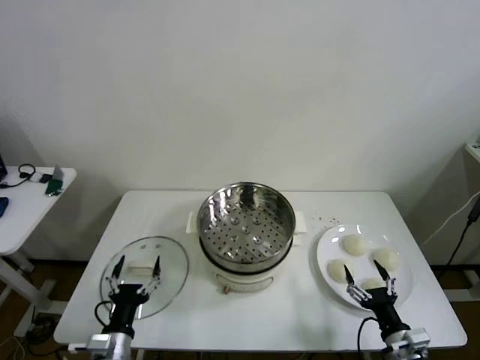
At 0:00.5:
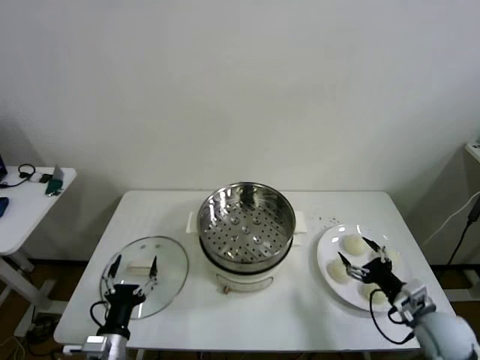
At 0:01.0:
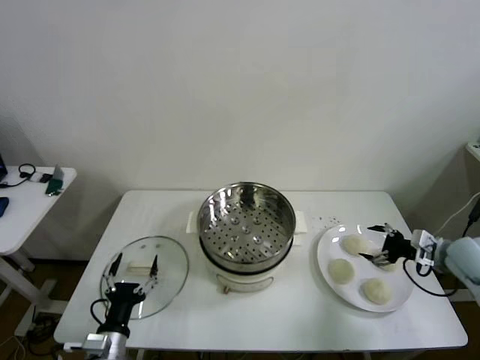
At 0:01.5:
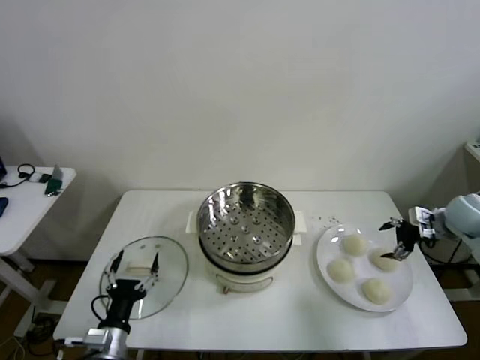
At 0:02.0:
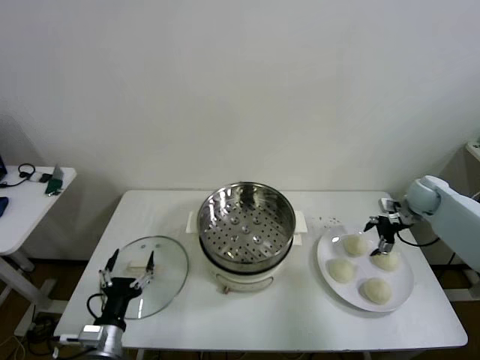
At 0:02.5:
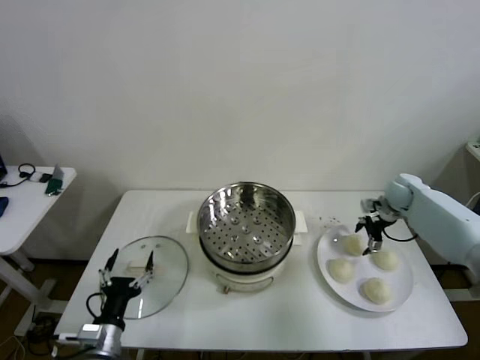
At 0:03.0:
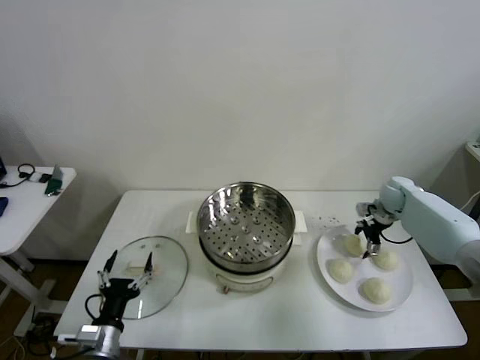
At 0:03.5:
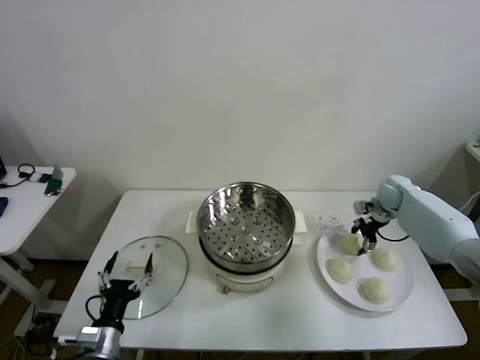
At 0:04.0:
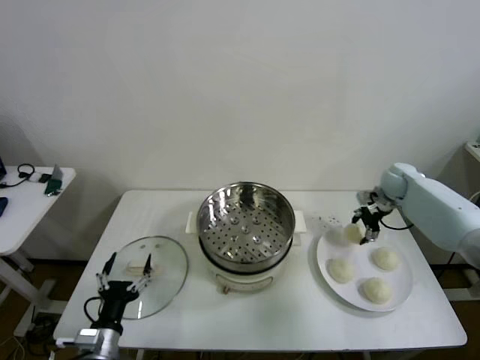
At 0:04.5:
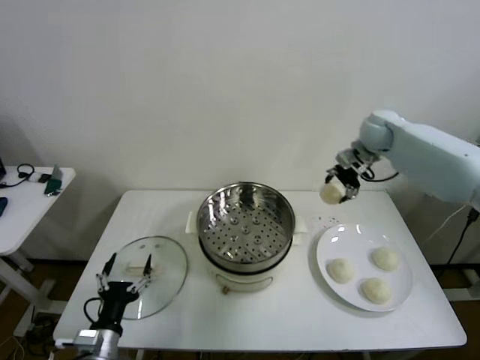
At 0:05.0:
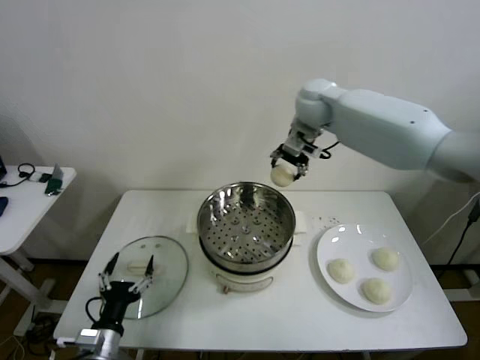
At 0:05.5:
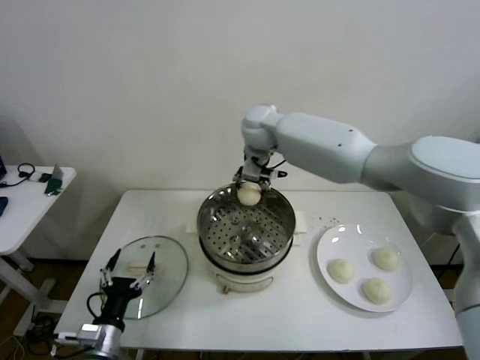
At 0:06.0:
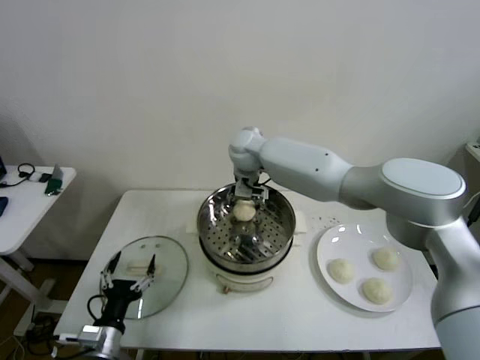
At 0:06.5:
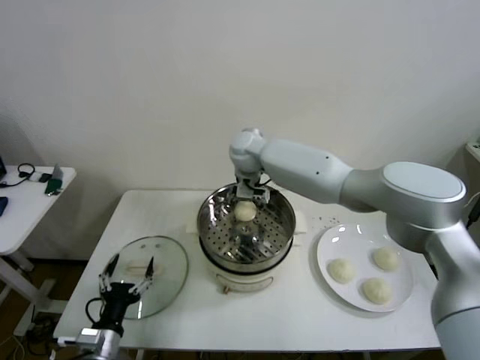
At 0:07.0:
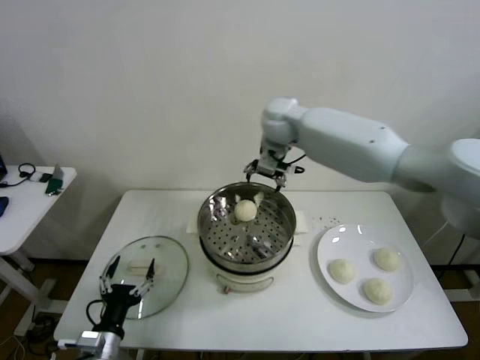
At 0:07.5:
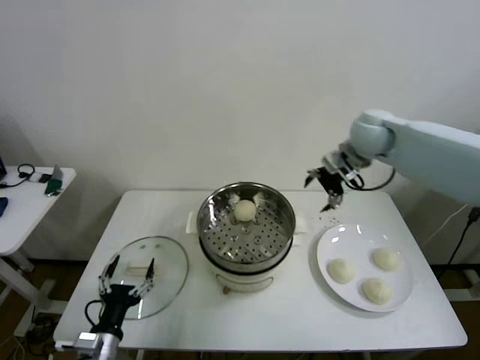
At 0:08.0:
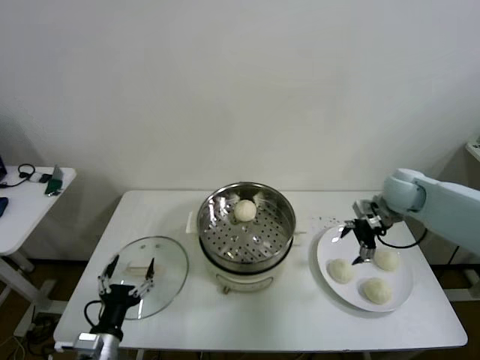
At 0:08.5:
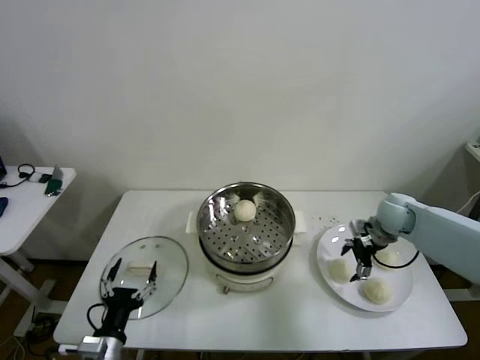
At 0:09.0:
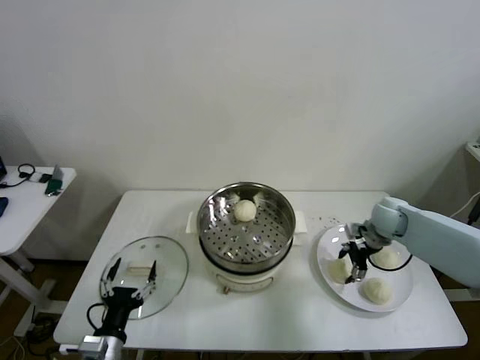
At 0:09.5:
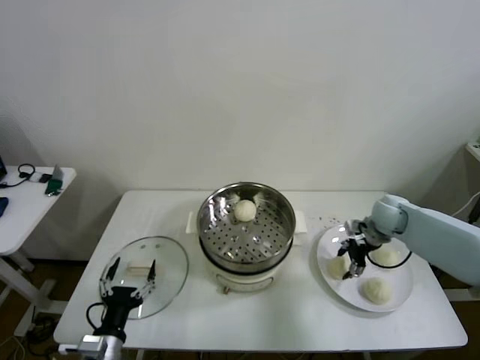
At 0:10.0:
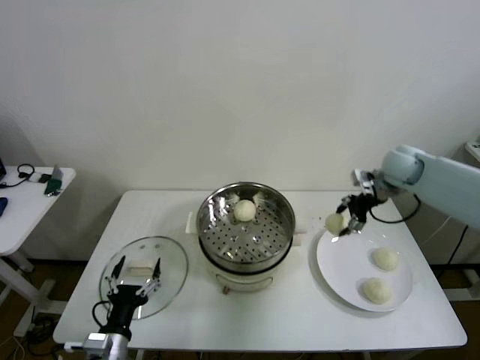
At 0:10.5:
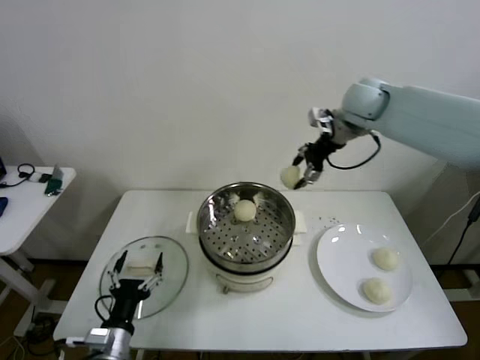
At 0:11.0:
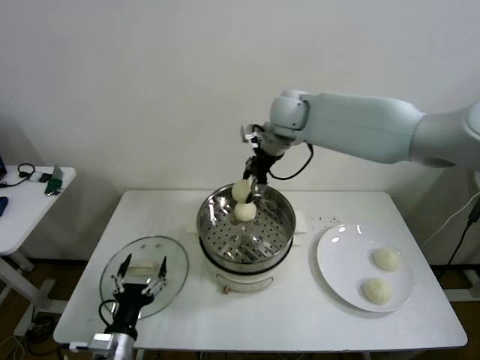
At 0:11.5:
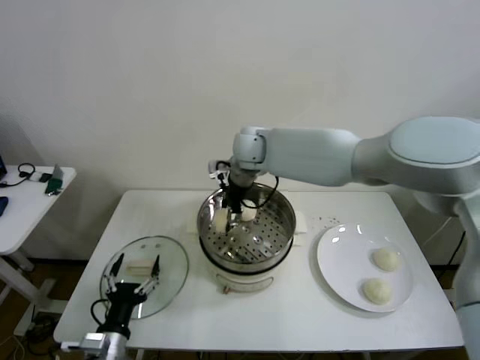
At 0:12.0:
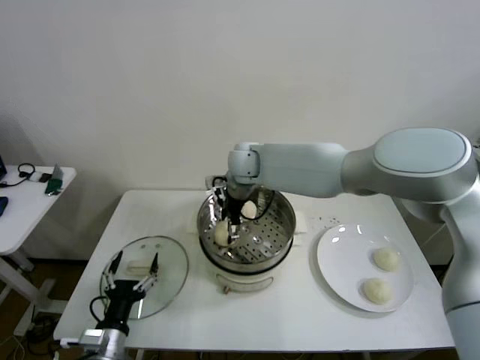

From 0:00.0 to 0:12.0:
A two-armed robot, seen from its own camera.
Step, from 0:00.0 to 0:03.0: Grasp the baozi in the plate with right gripper.
Step, from 0:03.5 to 0:06.0: Place the baozi on the steamer with right gripper.
Step, from 0:06.5 to 0:09.0: Grasp the baozi in the plate with right gripper.
Step, from 0:09.5 to 0:12.0: Place the baozi on the steamer with right gripper.
From 0:02.0 to 0:04.0: The right gripper travels forward by roughly 5 cm, and closes.
From 0:04.0 to 0:06.0: The right gripper is displaced to the left by about 40 cm.
From 0:06.0 to 0:08.0: The right gripper travels to the right by about 35 cm, and opens up.
From 0:08.0 to 0:10.0: The right gripper moves upward and forward, roughly 10 cm, and closes its fingers.
From 0:10.0 to 0:12.0: The right gripper heads to the left, covering roughly 35 cm, and opens its fingers.

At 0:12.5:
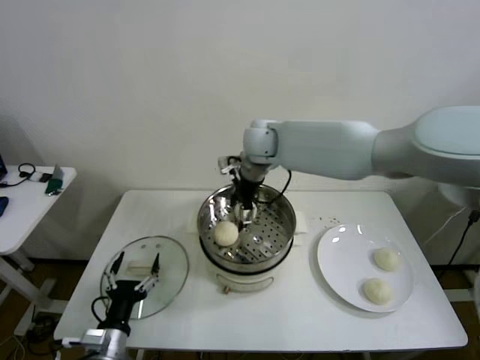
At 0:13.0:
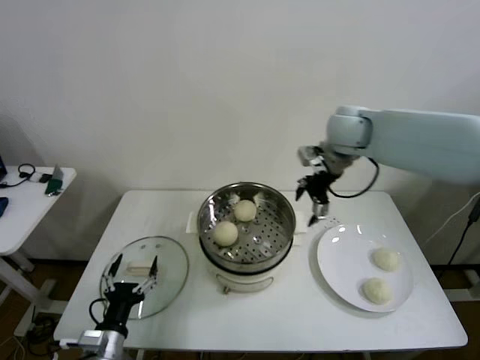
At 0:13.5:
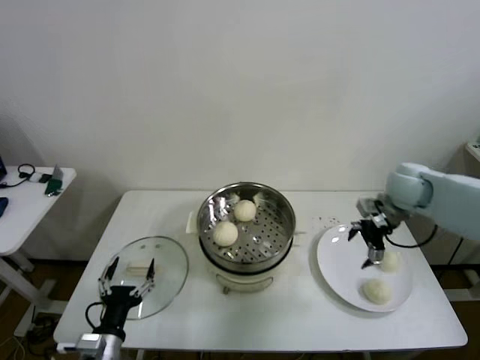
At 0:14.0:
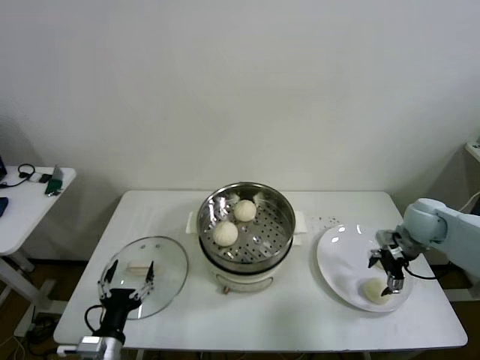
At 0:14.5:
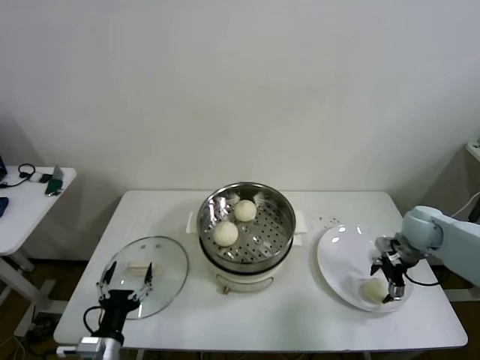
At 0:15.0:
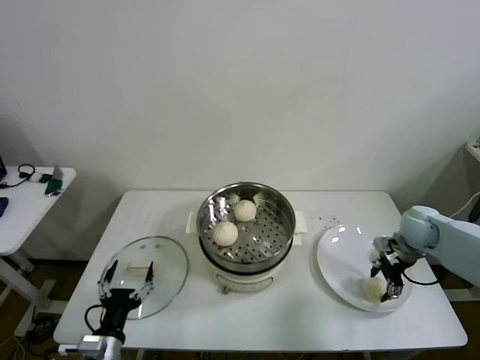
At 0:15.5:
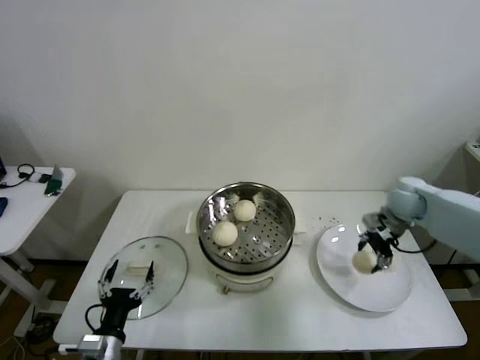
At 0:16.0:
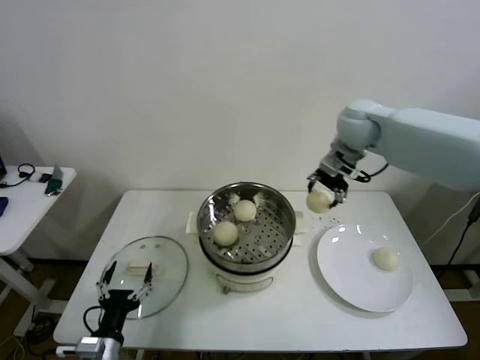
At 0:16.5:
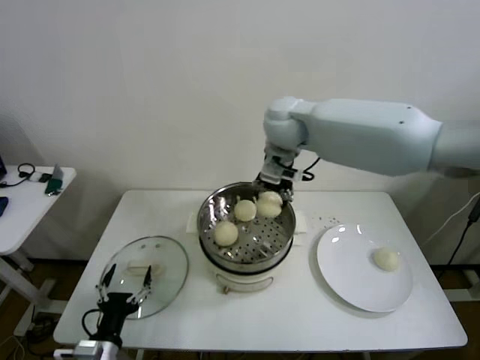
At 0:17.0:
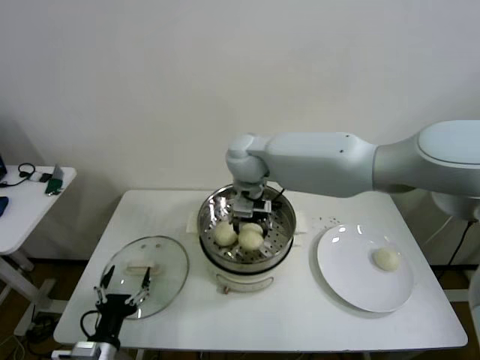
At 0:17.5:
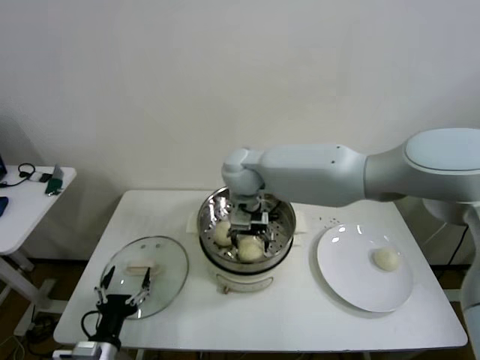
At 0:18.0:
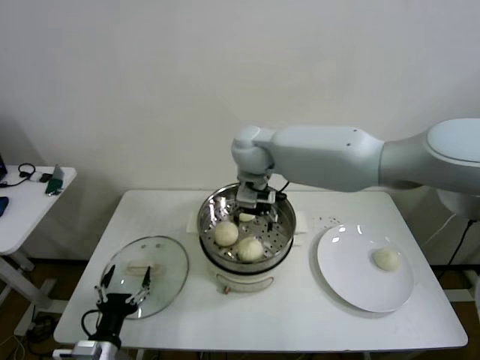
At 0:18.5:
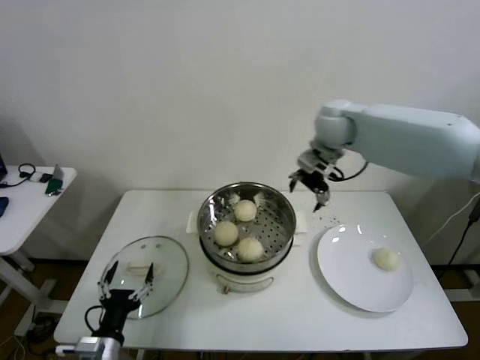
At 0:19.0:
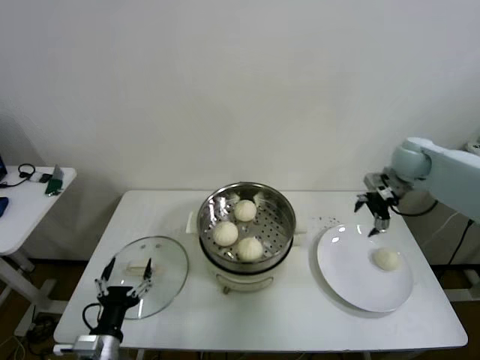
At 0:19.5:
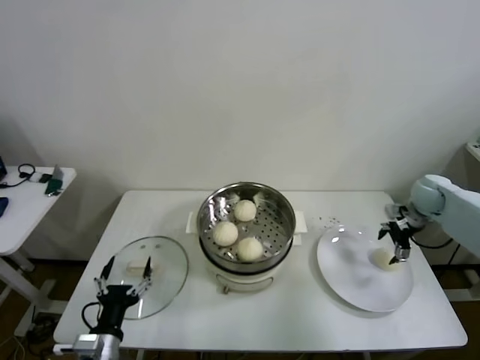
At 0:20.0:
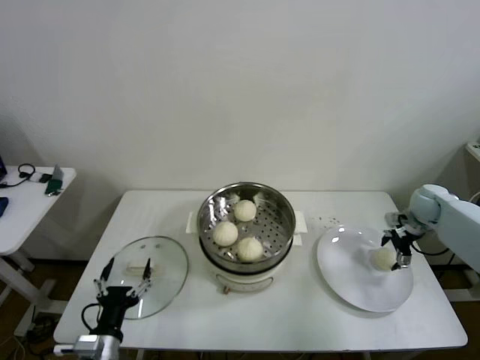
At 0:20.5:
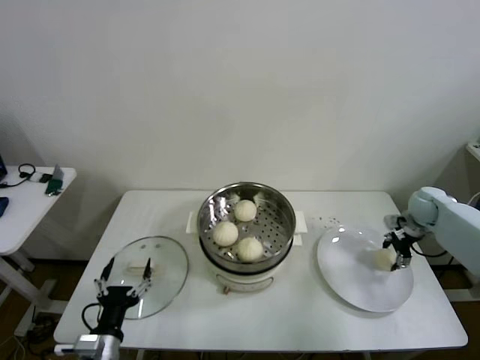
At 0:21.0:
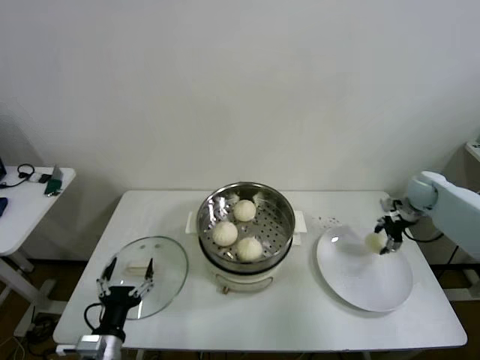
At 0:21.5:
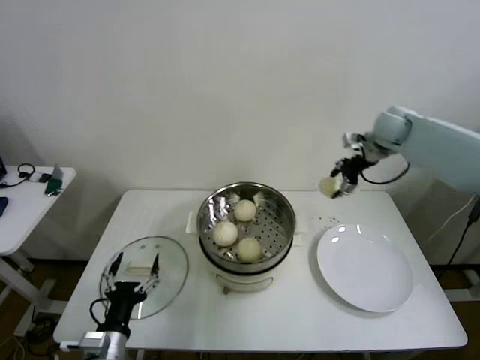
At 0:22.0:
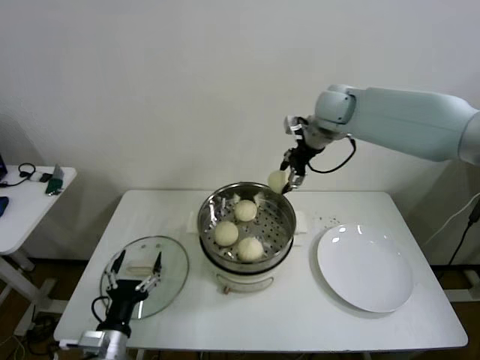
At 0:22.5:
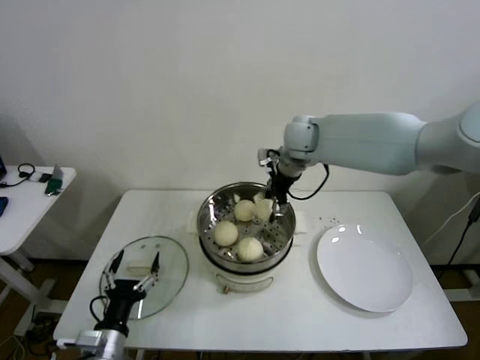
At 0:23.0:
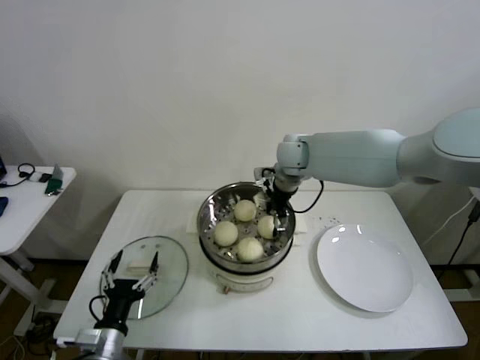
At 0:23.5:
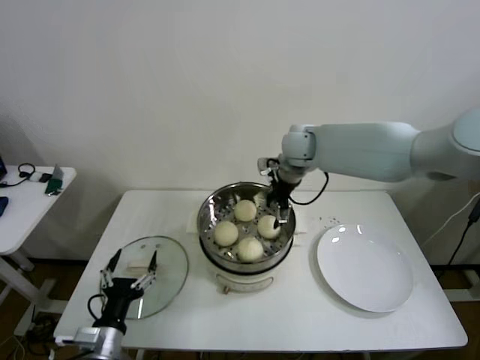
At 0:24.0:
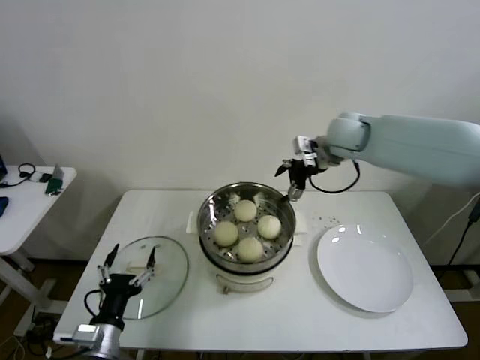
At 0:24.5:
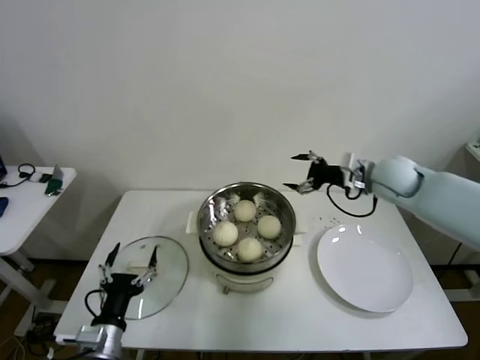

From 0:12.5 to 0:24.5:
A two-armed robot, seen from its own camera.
Step, from 0:12.5 to 0:14.5: Grasp the baozi in the plate with right gripper.
Step, from 0:15.0 to 0:17.5: Place the baozi on the steamer with right gripper.
Step, from 0:18.0 to 0:20.0: Grasp the baozi in the plate with right gripper.
Step, from 0:20.5 to 0:23.0: Place the baozi on the steamer with right gripper.
From 0:12.5 to 0:14.5: The right gripper moves to the right and downward, about 40 cm.
From 0:14.5 to 0:16.5: The right gripper heads to the left and upward, covering some 40 cm, and closes up.
From 0:16.5 to 0:18.5: The right gripper travels to the right by some 15 cm, and opens.
From 0:18.5 to 0:20.5: The right gripper goes roughly 35 cm to the right and downward, and closes up.
From 0:20.5 to 0:22.5: The right gripper moves to the left and upward, roughly 40 cm.
From 0:22.5 to 0:24.5: The right gripper heads to the right and backward, covering about 20 cm, and opens.

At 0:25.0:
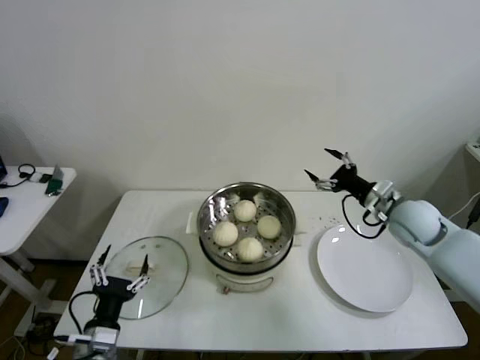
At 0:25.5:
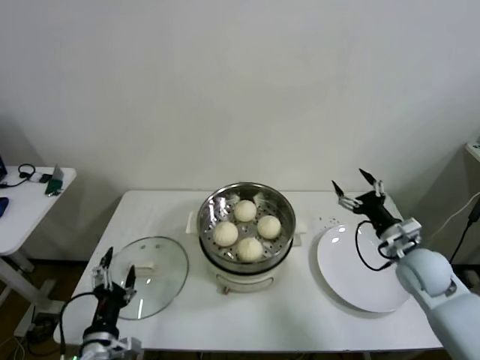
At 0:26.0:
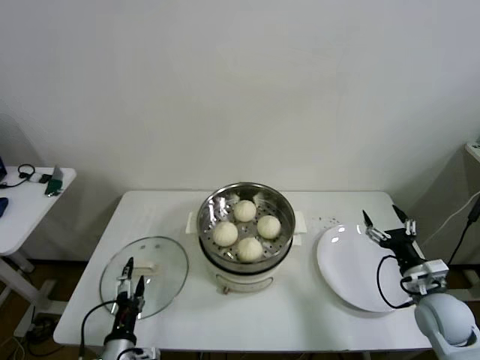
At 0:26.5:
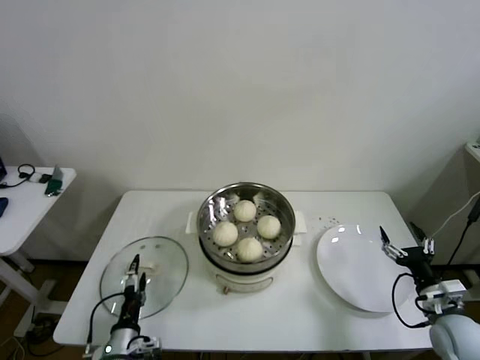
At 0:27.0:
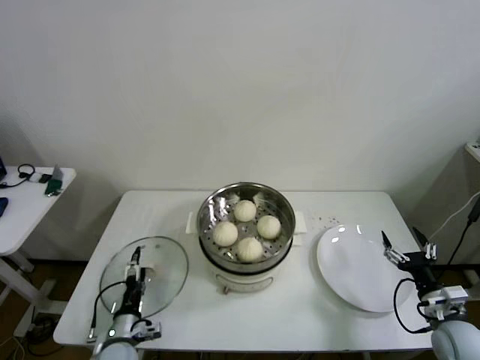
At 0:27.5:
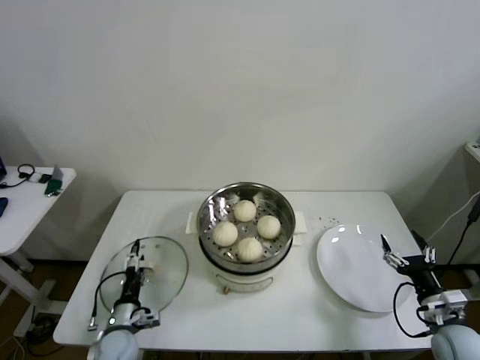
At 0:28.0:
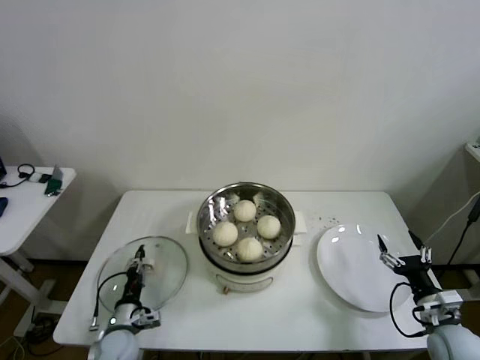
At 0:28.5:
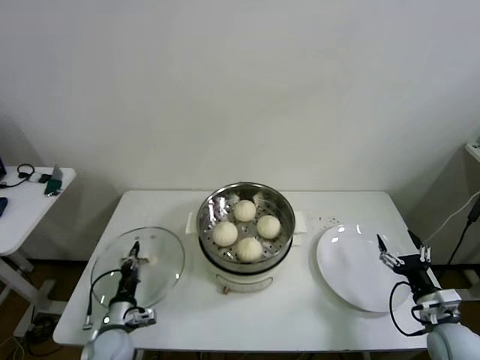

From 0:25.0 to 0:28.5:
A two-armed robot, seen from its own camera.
Step, from 0:25.0 to 0:28.0: Grasp the pot lid with left gripper.
From 0:25.0 to 0:27.0: The left gripper goes approximately 15 cm downward and forward; the right gripper is displaced backward and downward by roughly 25 cm.
From 0:27.0 to 0:28.5: The left gripper closes.
